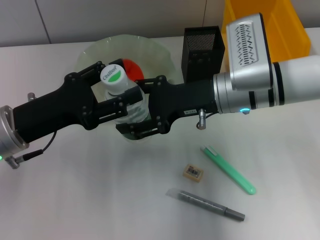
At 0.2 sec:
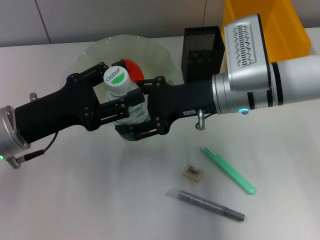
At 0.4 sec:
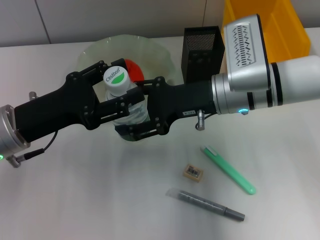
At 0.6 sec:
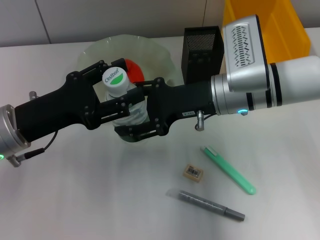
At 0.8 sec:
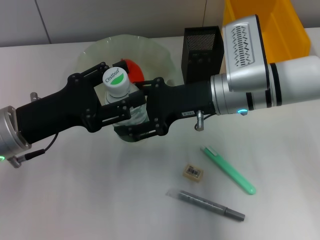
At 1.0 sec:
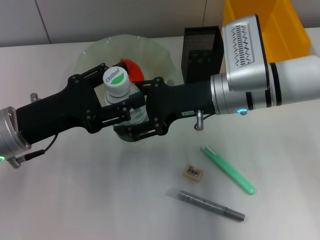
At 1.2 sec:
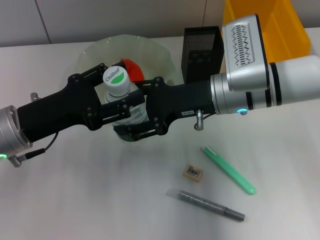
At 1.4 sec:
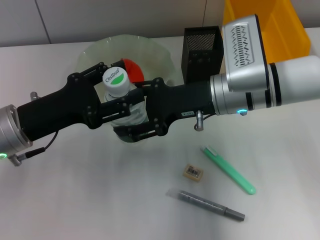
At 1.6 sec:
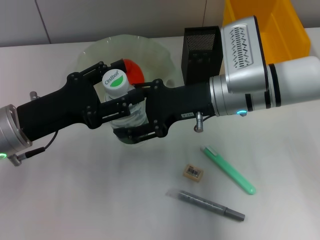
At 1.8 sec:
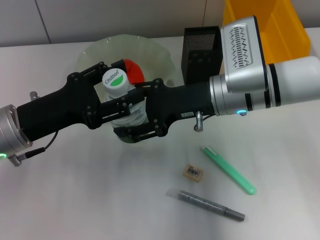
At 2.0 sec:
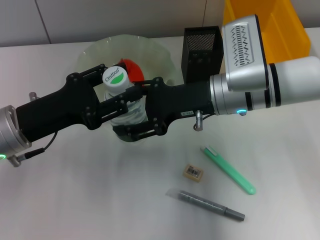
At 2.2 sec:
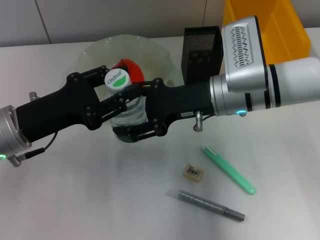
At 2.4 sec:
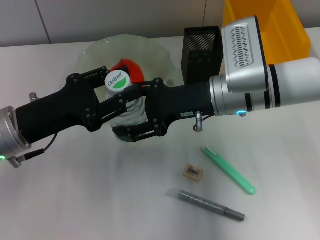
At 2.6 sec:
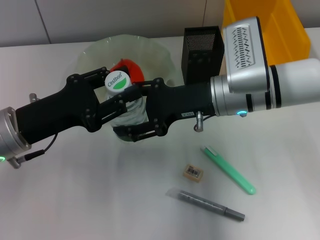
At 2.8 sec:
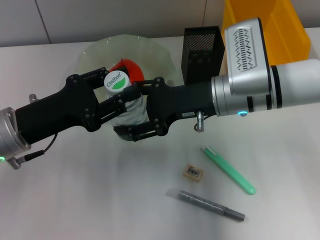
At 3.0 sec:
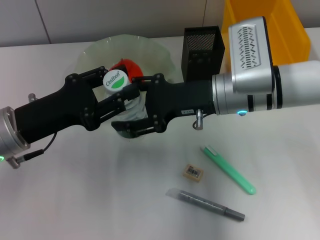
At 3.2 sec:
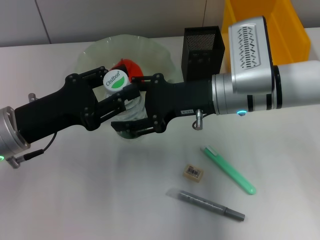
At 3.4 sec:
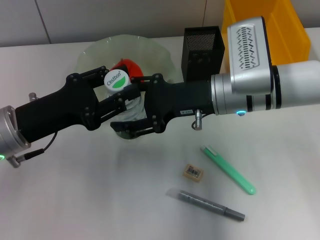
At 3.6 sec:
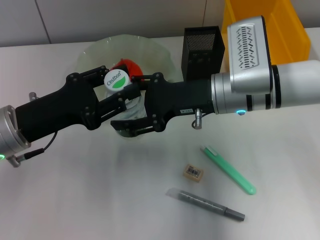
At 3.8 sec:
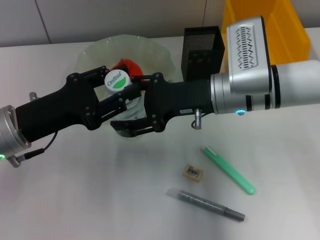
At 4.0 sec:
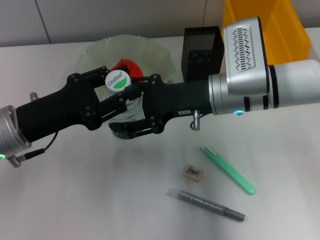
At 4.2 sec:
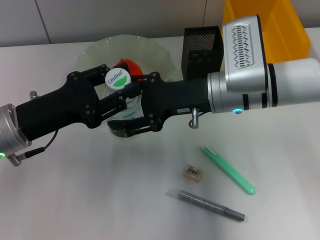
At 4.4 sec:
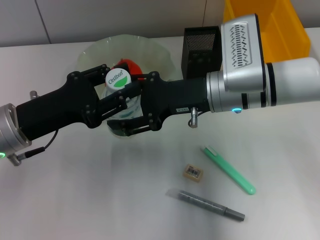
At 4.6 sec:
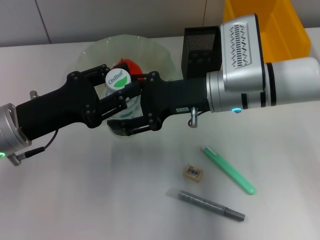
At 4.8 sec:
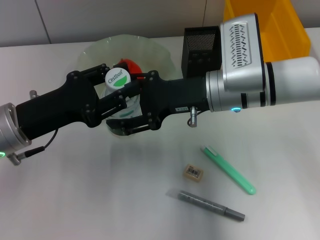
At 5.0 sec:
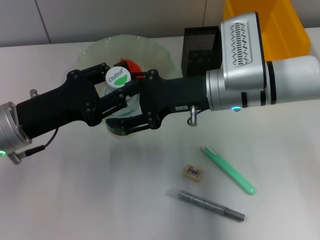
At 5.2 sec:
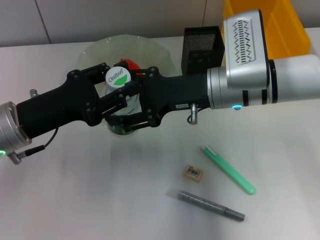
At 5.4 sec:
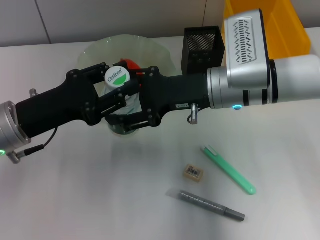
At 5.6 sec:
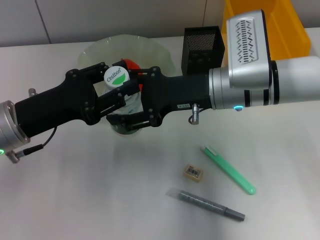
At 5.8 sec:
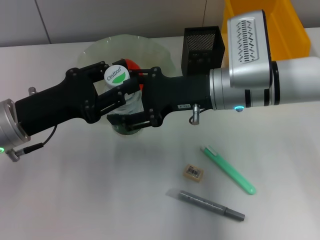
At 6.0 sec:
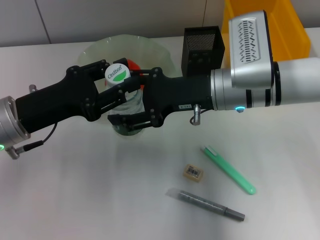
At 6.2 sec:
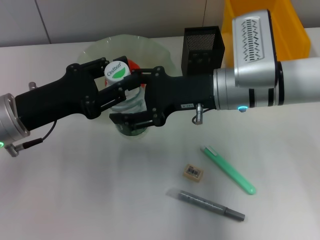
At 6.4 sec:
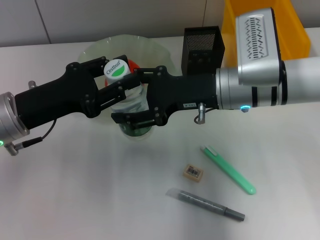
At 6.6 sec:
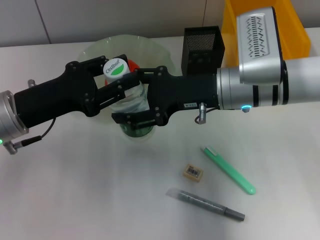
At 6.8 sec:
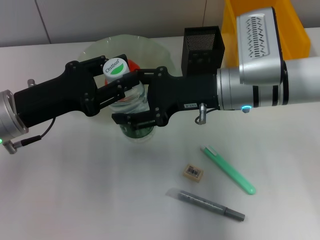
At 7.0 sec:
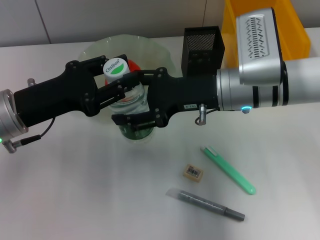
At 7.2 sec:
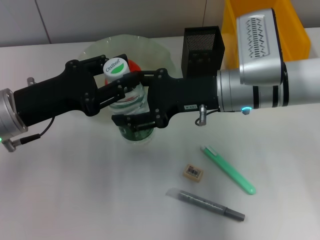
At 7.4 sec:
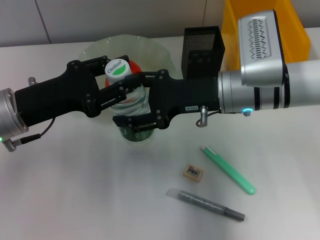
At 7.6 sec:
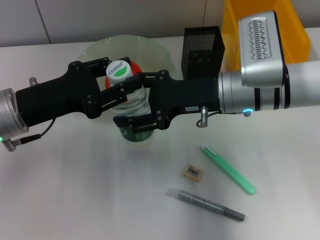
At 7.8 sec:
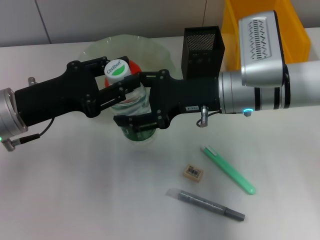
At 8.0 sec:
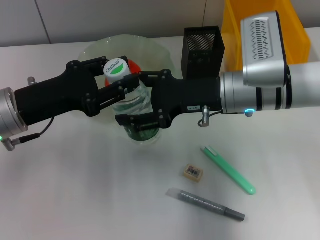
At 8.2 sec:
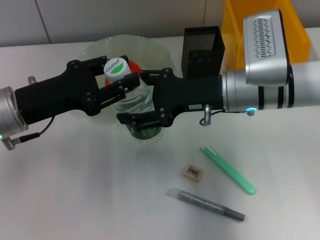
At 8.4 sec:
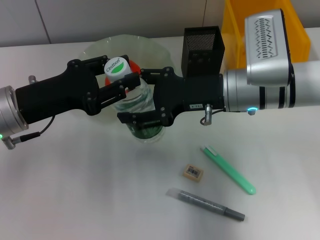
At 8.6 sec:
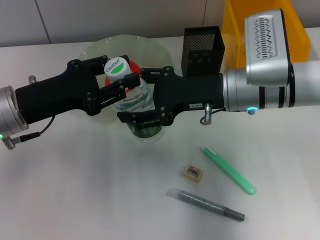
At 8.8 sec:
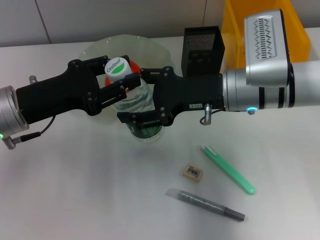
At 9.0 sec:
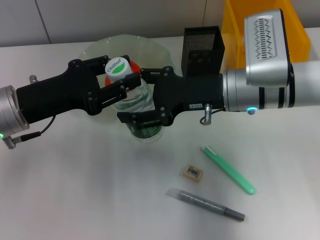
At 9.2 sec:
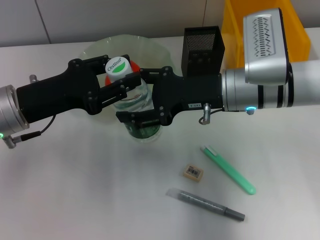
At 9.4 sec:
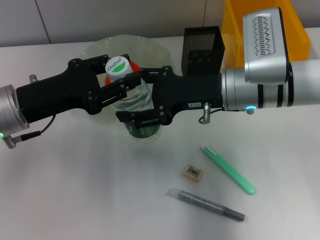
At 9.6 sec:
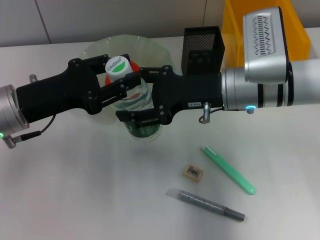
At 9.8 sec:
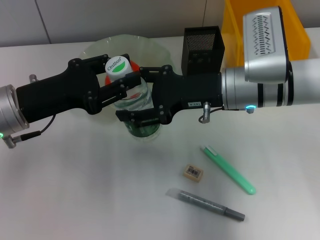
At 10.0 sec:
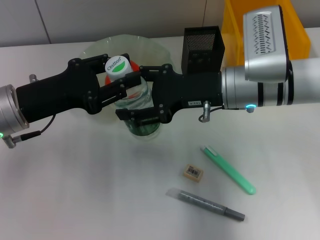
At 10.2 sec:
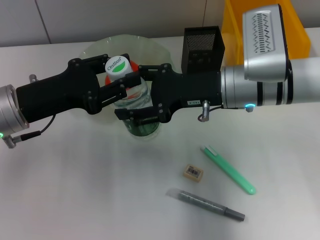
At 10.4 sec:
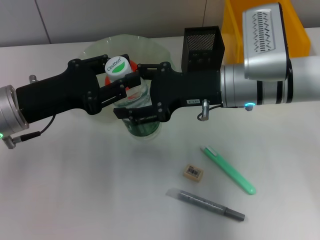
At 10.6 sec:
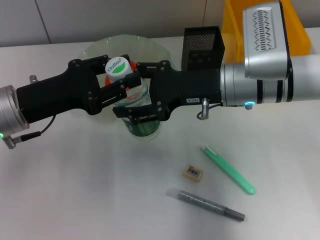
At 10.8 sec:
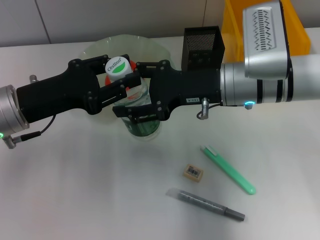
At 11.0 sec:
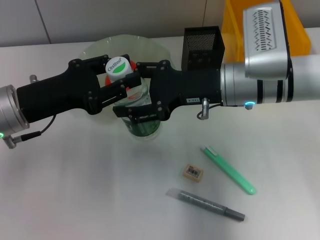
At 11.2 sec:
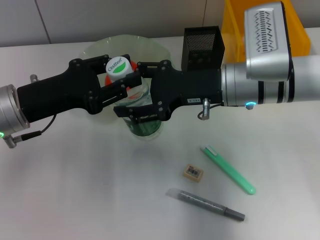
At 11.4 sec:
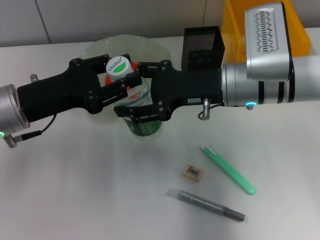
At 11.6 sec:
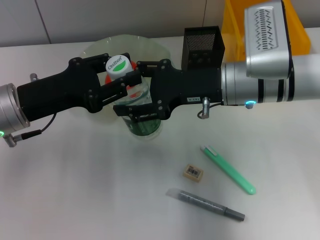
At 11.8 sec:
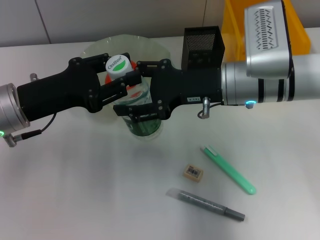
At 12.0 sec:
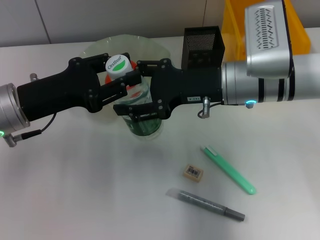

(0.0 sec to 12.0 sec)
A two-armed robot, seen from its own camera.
0.0 sec - 1.6 sec: Neither gripper changes place.
1.6 sec - 3.0 sec: The left gripper closes up.
3.0 sec - 6.0 sec: The two grippers keep their place.
6.0 sec - 7.6 sec: The two grippers keep their place.
7.6 sec - 12.0 sec: Both grippers stay put.

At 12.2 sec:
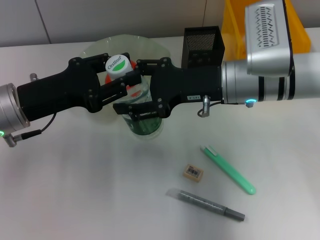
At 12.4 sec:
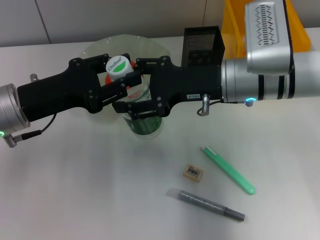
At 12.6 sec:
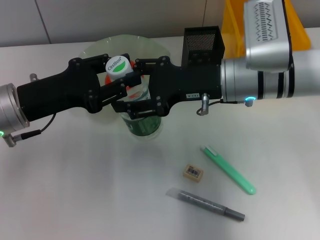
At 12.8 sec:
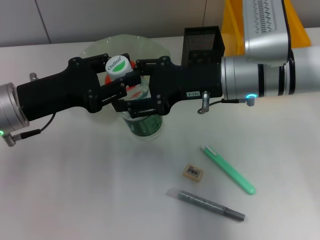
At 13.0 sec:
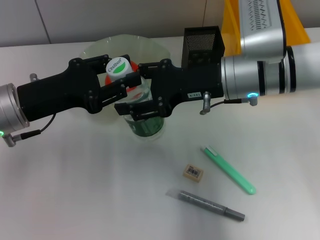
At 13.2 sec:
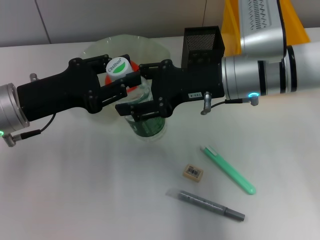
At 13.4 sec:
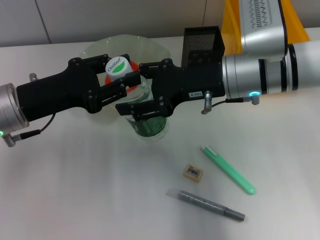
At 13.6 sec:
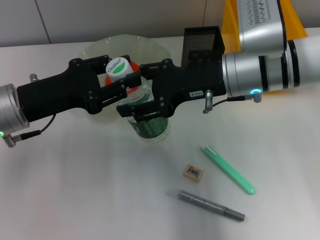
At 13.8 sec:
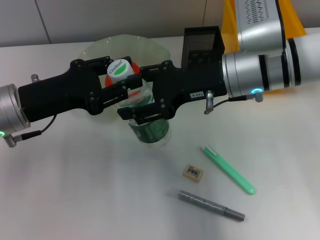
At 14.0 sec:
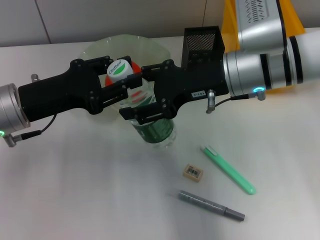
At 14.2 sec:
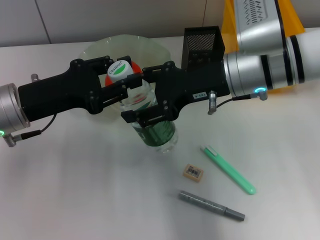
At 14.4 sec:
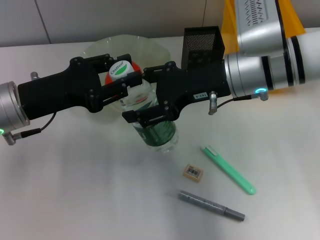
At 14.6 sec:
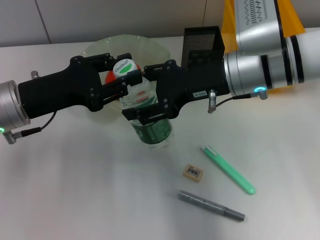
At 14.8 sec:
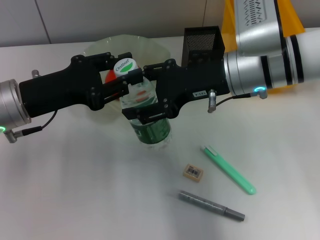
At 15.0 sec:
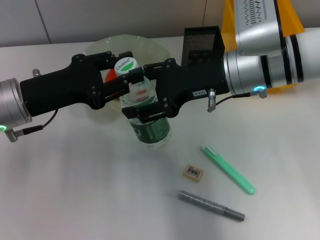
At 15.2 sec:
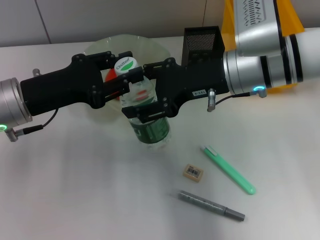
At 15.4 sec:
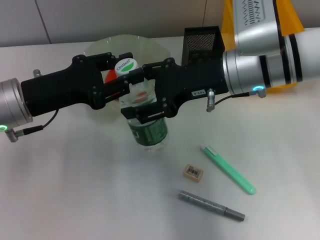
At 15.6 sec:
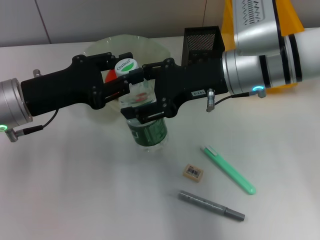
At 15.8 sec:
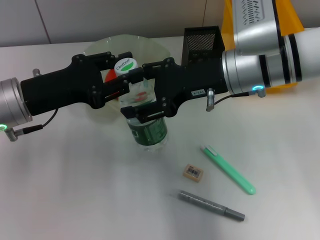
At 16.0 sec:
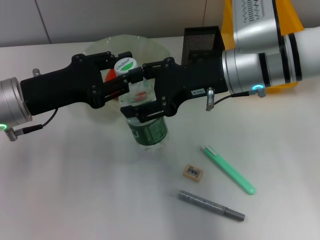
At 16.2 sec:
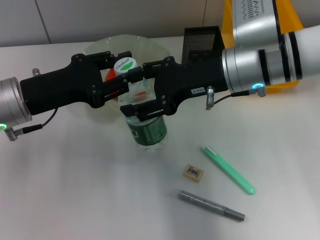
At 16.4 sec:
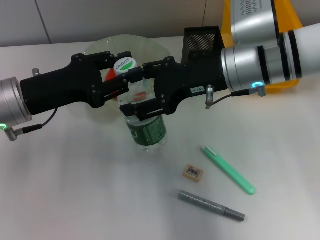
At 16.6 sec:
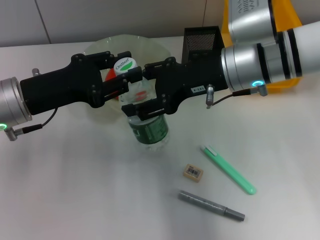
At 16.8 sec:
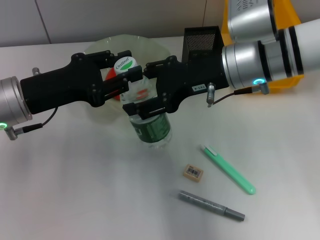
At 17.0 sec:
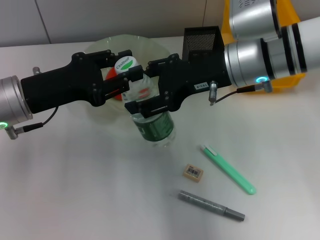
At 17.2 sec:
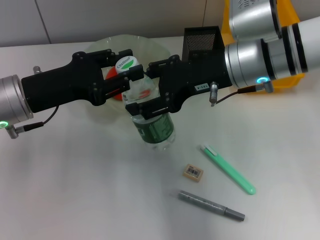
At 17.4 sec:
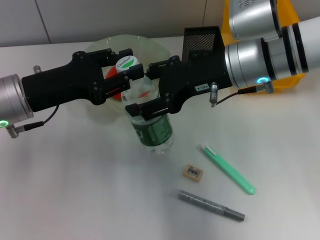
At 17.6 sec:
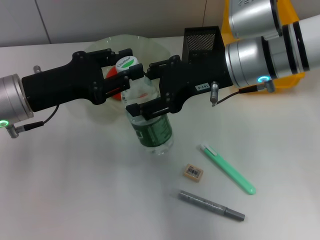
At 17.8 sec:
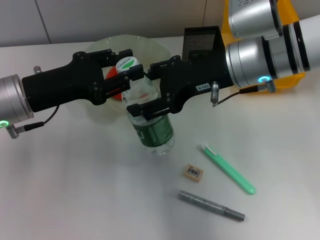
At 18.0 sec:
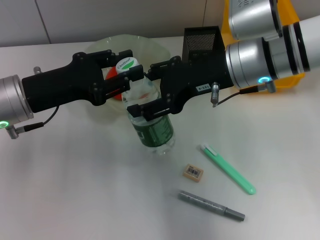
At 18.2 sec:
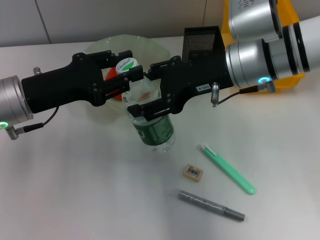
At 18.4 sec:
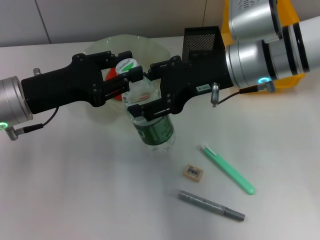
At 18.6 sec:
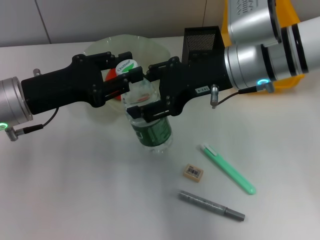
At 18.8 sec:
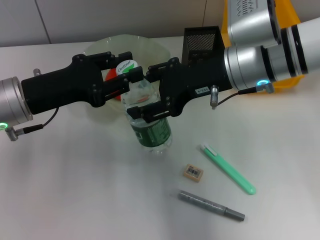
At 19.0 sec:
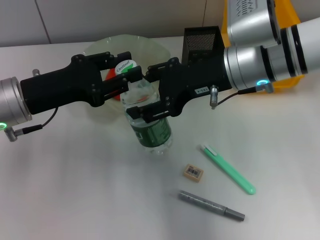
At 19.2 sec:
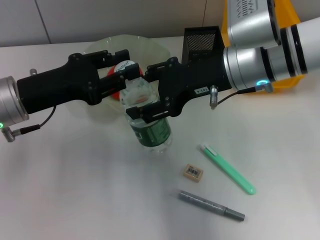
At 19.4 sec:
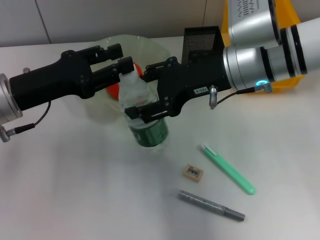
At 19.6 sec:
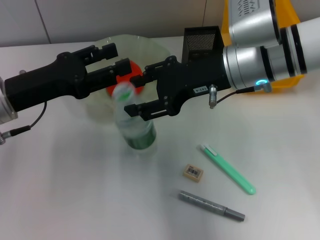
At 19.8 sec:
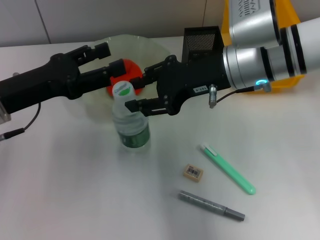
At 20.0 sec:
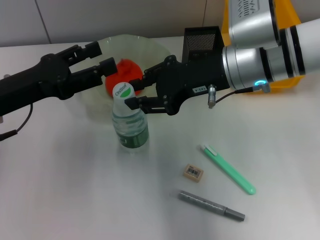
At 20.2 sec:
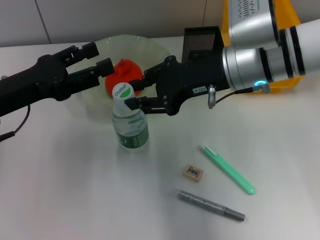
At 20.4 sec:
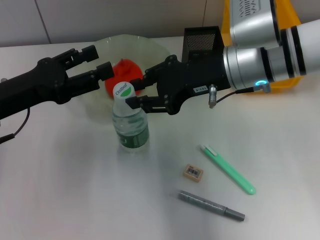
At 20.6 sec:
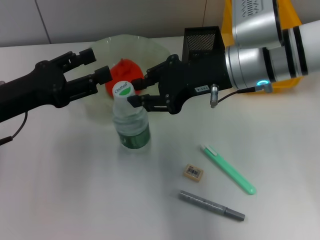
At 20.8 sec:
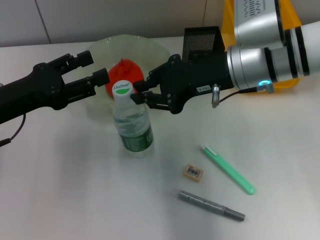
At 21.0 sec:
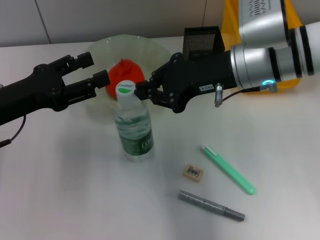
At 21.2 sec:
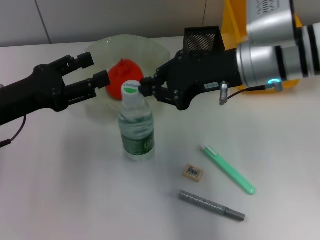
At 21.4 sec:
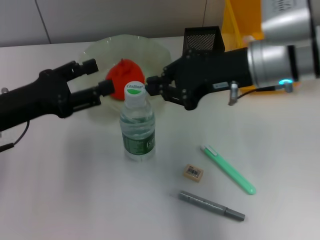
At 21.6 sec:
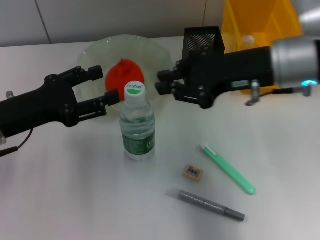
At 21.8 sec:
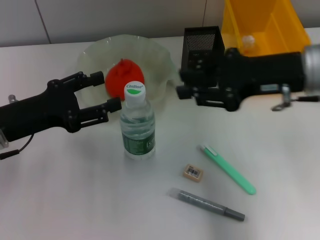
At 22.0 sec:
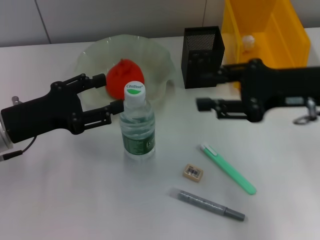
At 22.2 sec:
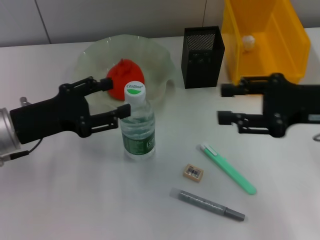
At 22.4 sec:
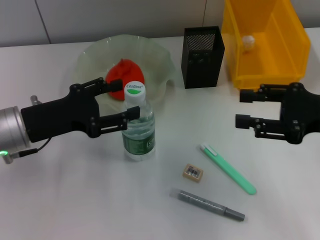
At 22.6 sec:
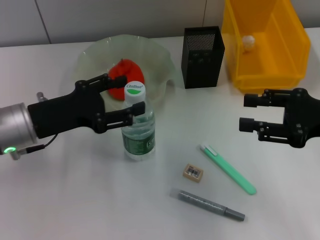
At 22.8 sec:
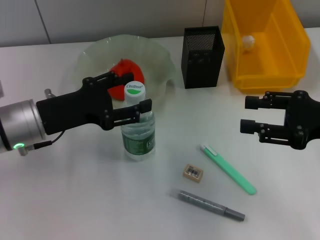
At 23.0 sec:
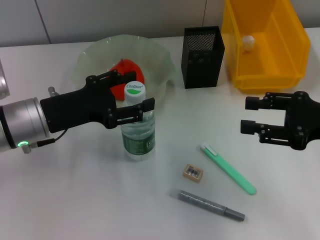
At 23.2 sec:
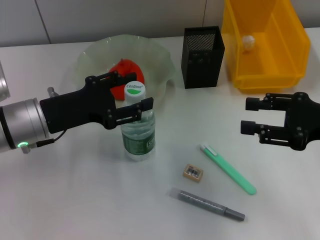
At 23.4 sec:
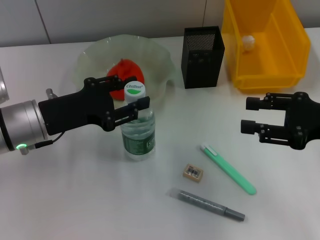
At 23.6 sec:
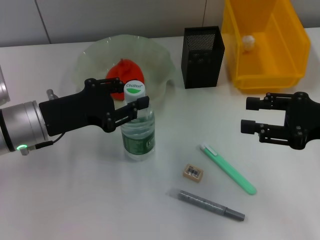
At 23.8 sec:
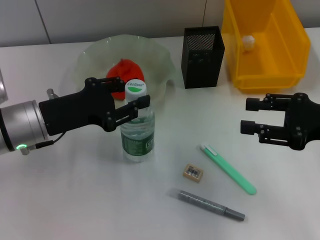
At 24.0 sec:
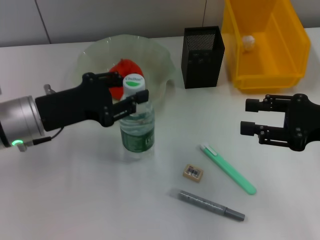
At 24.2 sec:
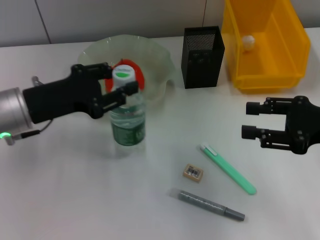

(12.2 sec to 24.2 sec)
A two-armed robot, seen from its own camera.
Step, 12.2 sec - 23.6 sec: Grab the water bottle with the left hand.
12.2 sec - 13.8 sec: The grippers move only a little.
13.8 sec - 15.2 sec: Both grippers stay put.
15.2 sec - 16.6 sec: The grippers stay close to where they were, moving slightly.
16.6 sec - 18.2 sec: The two grippers keep their place.
18.2 sec - 19.8 sec: There are only small adjustments of the grippers.
19.8 sec - 21.2 sec: The right gripper closes up.
21.2 sec - 22.6 sec: The right gripper shifts roughly 15 cm to the right and backward, and opens its fingers.
22.6 sec - 24.2 sec: The left gripper closes up.
